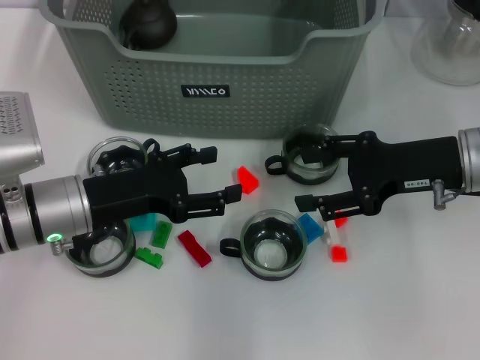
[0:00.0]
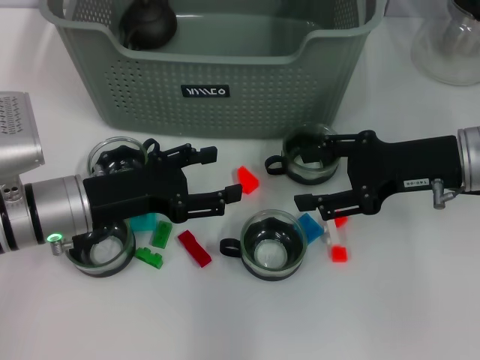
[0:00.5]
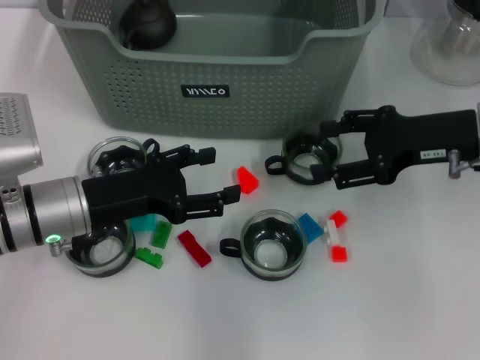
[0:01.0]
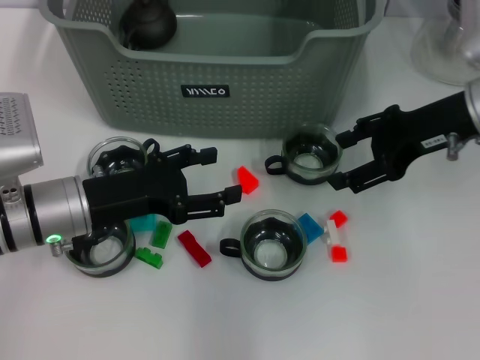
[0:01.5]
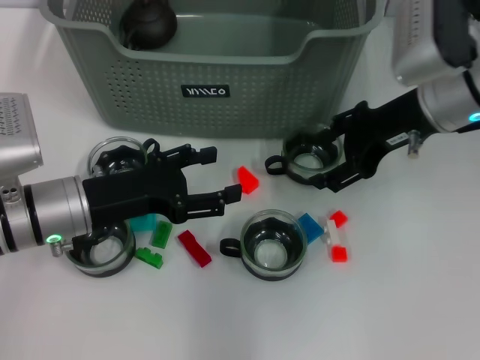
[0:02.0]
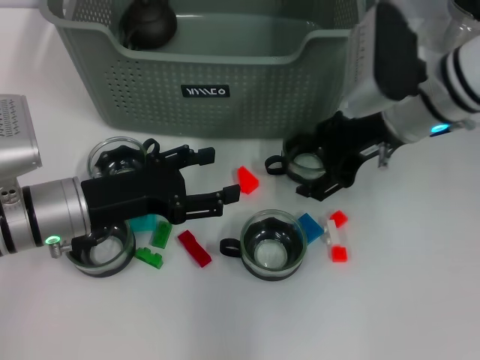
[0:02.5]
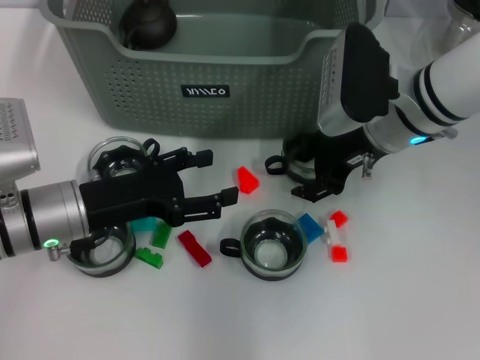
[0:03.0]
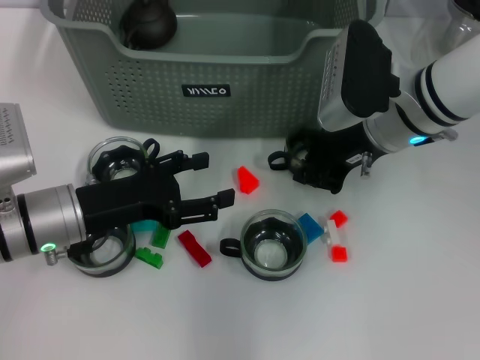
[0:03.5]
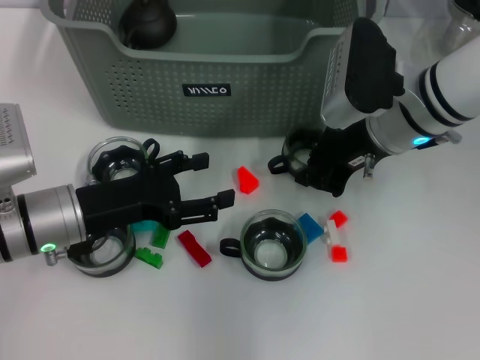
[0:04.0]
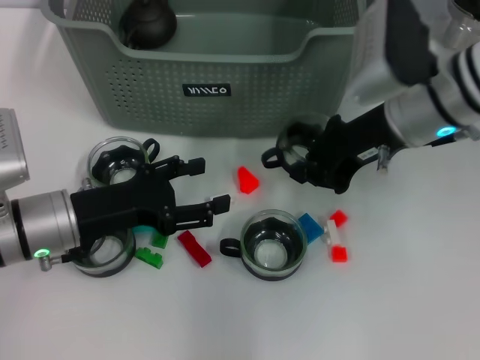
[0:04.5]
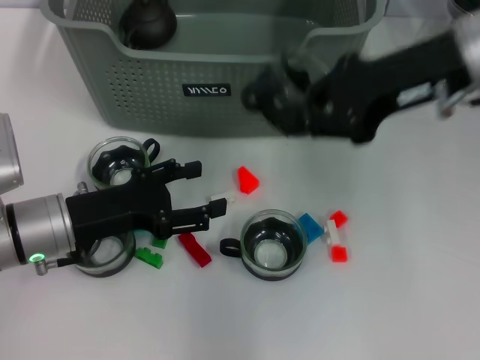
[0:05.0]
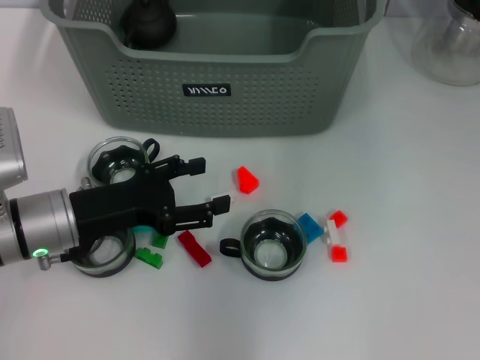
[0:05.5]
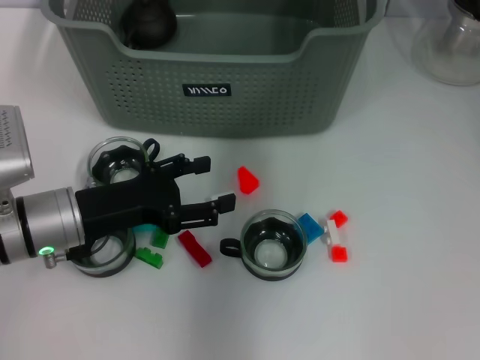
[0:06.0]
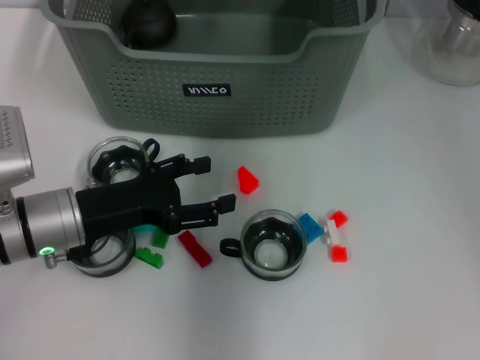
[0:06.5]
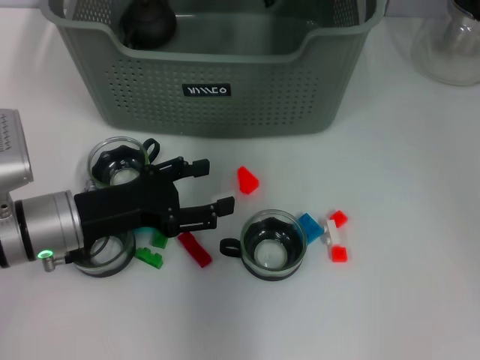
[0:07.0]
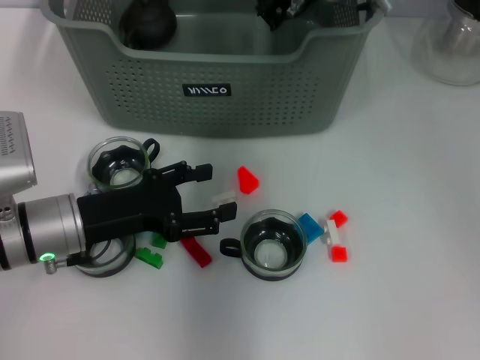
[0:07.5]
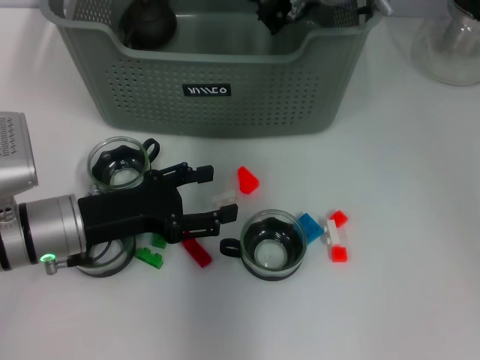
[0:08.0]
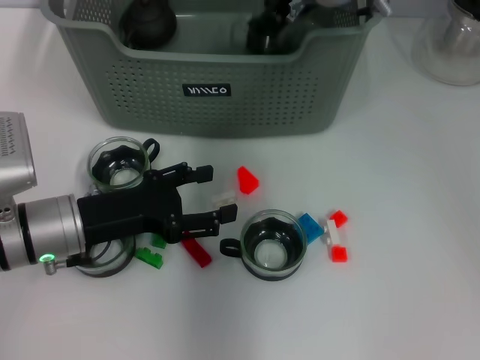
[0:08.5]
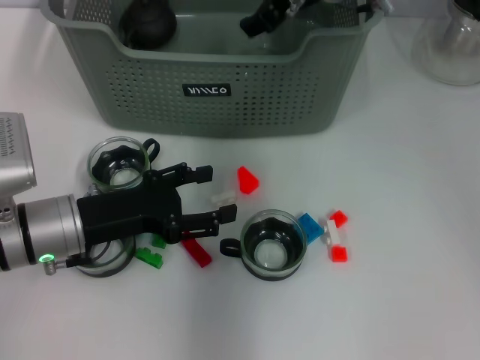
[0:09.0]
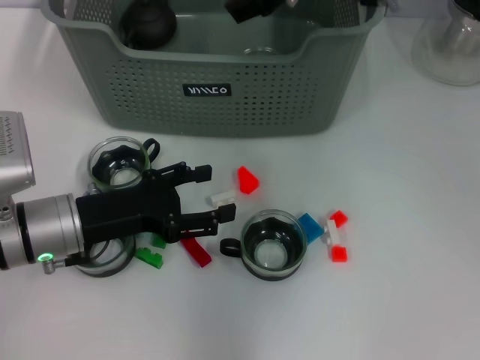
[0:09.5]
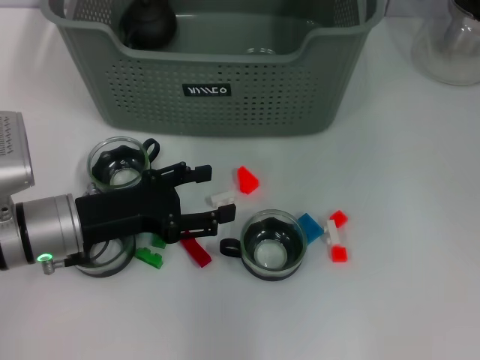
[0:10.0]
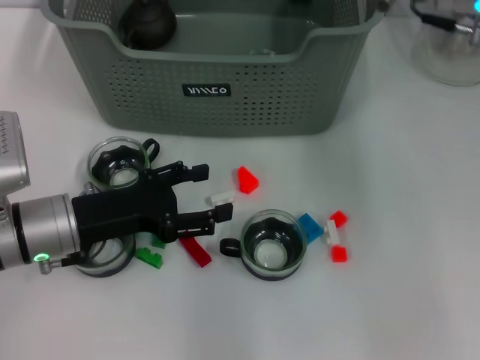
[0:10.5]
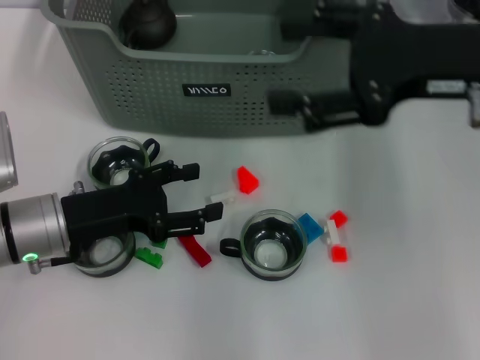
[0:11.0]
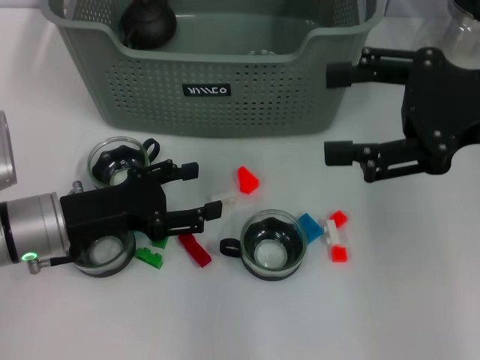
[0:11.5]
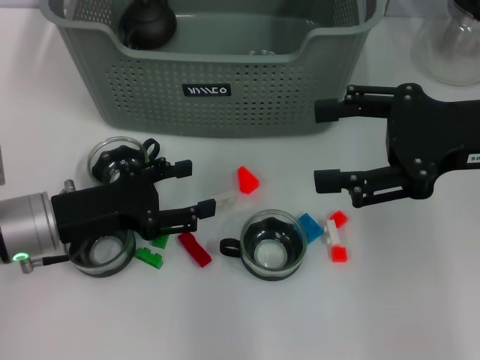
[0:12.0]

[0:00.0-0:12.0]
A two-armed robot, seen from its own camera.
Task of the whole recording: pick up the teacup on the table and place it into the storage bin, pick up the block on the table and place it into the storage bin.
Step, 0:00.0 to 0:03.5: Grasp the cup with right gripper.
Step, 0:04.0 to 0:09.5: Place the cup in the storage box with right gripper.
0:00.0 to 0:02.0: The right gripper heads forward, covering approximately 5 cm.
0:02.0 to 0:04.0: The right gripper ends up about 5 cm from where it was, and closes its fingers.
0:04.0 to 0:06.0: The right gripper is displaced upward and forward by approximately 20 cm.
0:06.0 to 0:08.0: The right gripper is displaced downward by roughly 10 cm.
0:08.0 to 0:10.0: The right gripper travels backward and upward by roughly 10 cm, and opens up.
0:10.0 to 0:12.0: The right gripper heads to the right, backward and downward, covering about 20 cm.

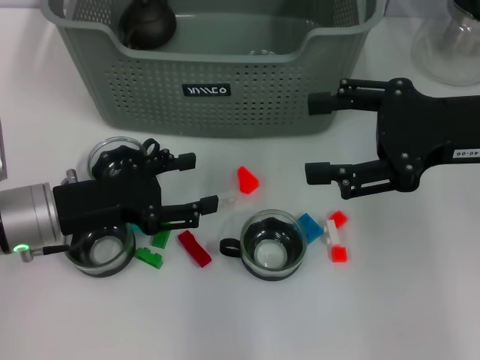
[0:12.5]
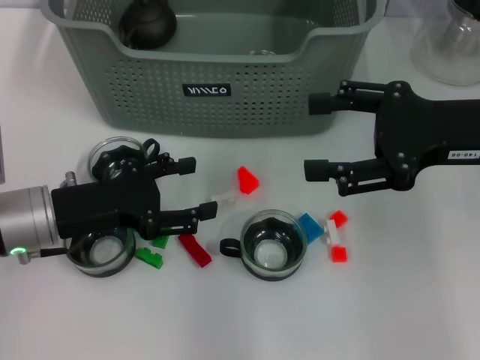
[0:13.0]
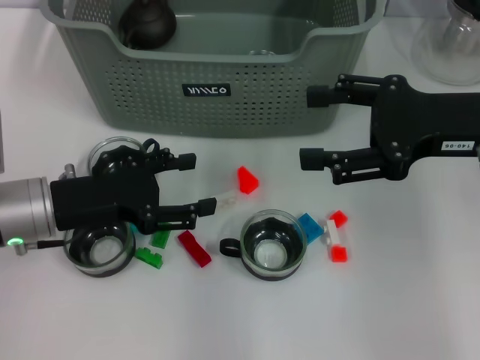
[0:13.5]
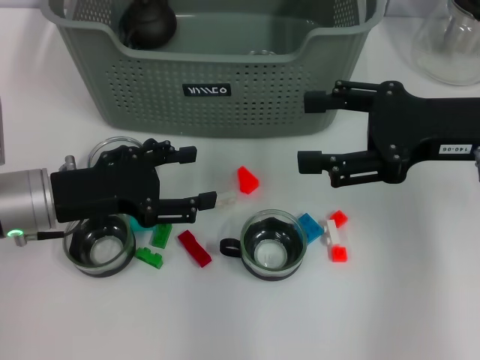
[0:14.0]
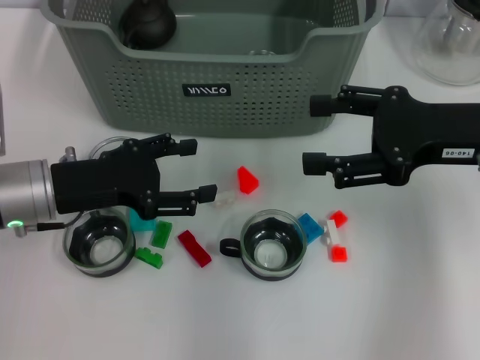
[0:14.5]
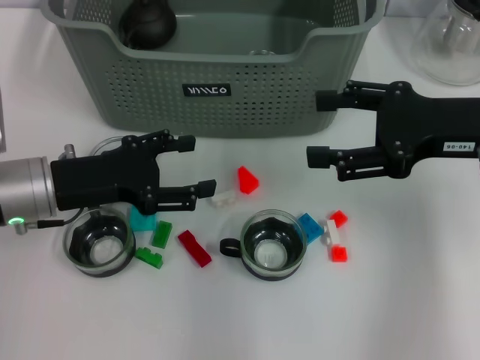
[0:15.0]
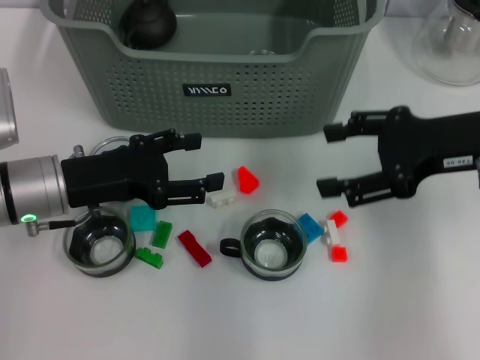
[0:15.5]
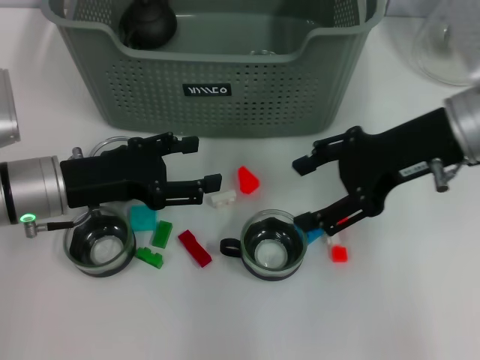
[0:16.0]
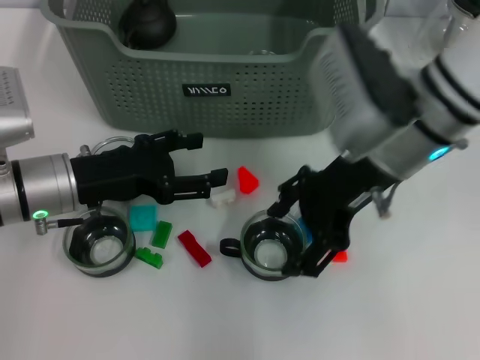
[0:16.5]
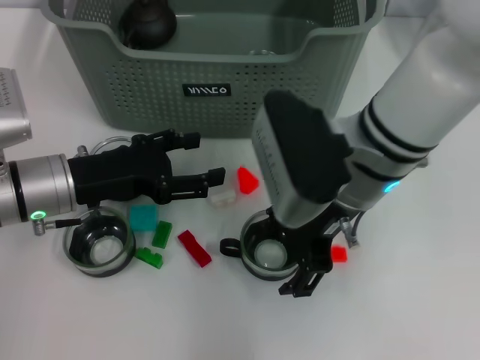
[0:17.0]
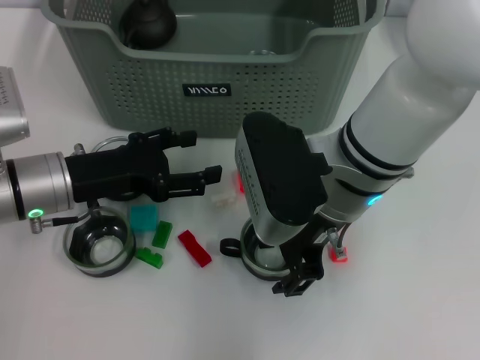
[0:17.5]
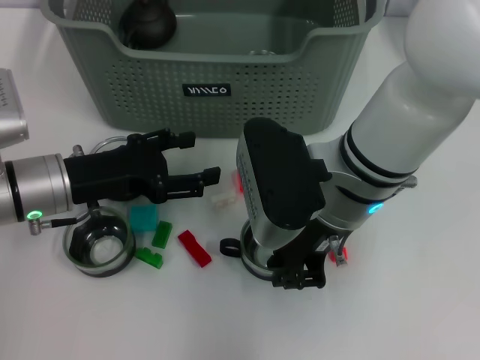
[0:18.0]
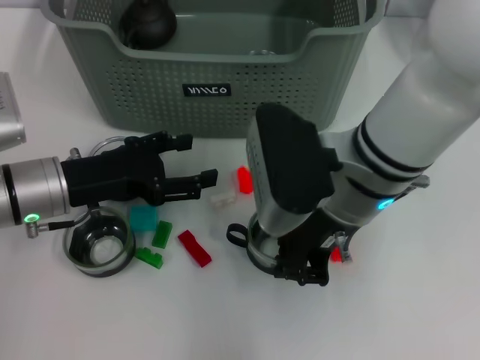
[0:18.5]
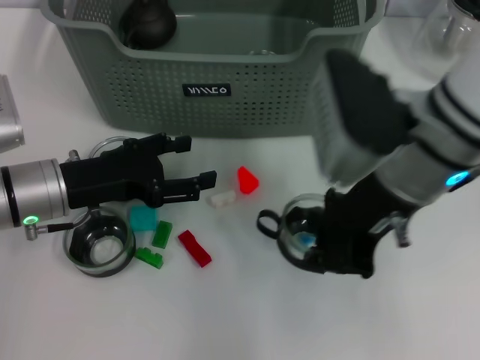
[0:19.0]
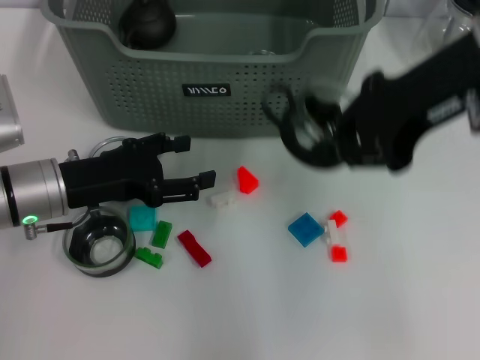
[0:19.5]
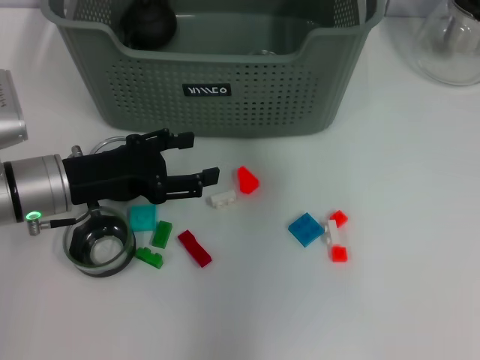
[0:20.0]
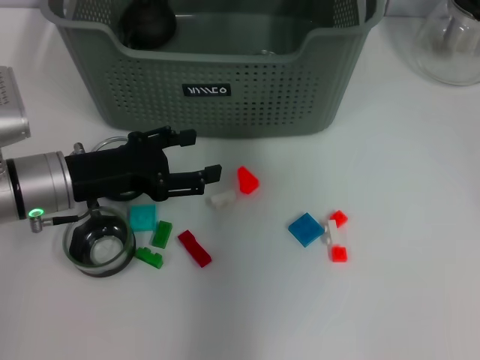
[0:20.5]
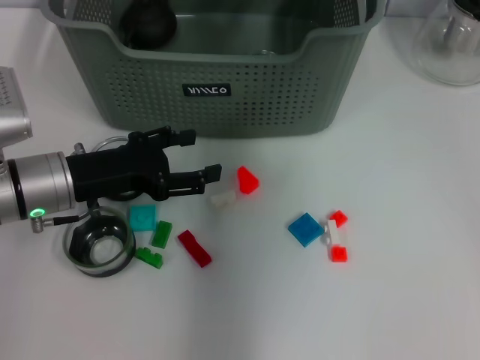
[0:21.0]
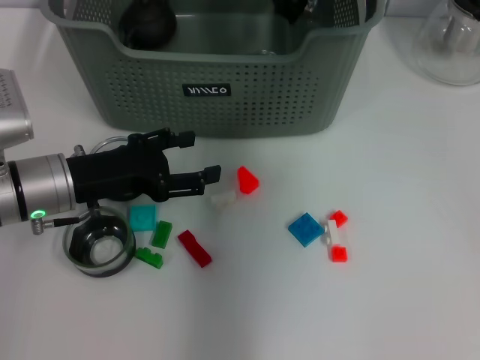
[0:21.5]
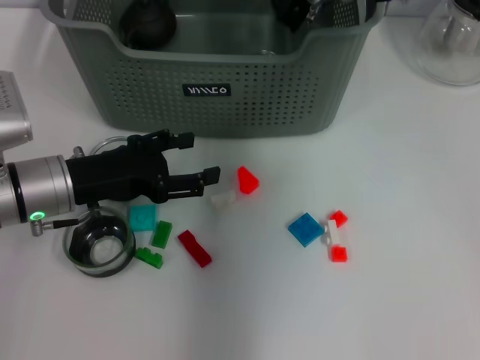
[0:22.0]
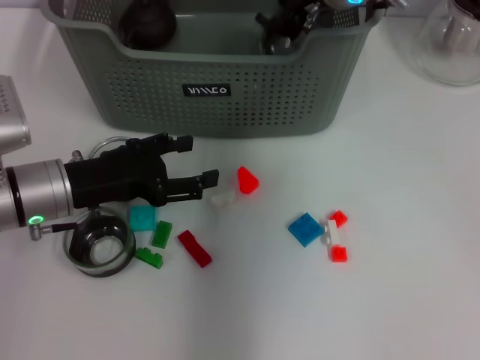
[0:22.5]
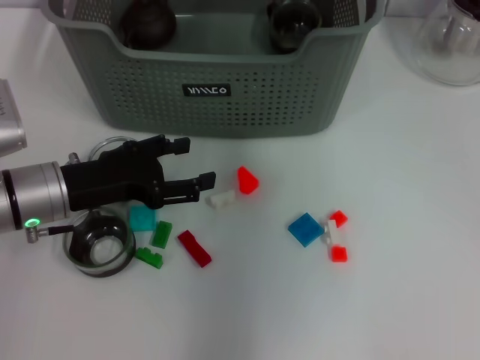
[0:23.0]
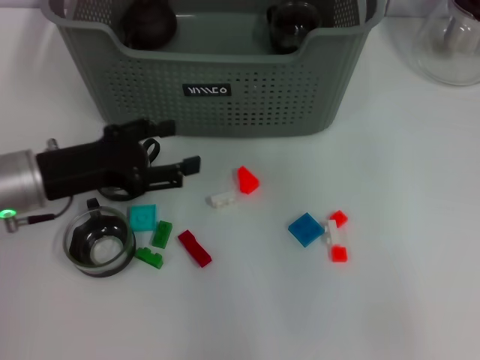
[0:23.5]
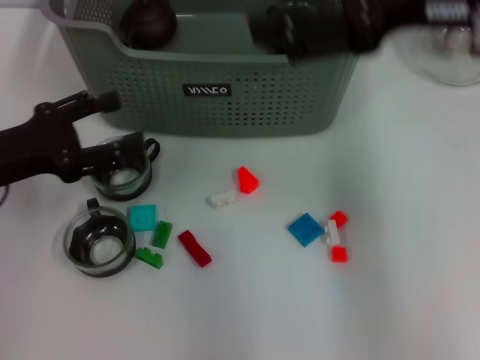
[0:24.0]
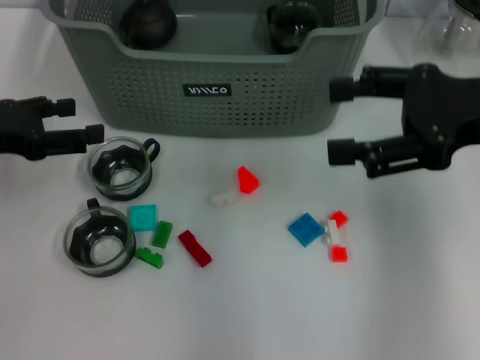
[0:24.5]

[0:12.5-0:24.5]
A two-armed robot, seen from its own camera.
Task of the whole recording: pick up the teacup on the table and place it into the storage bin, pick up the block on the table and place it into the storage bin.
Step, 0:12.5 to 0:18.0: Grasp the cup with right gripper.
Step, 0:18.5 to 0:22.5: Place the cup in the storage box with right gripper.
0:12.5 to 0:14.5: The grippers stay close to where they were, moving slightly.
0:14.5 to 0:16.5: The right gripper goes about 10 cm to the left.
0:16.5 to 0:18.5: The right gripper changes place by roughly 5 cm, and closes up.
0:18.5 to 0:20.5: The right gripper is displaced forward and upward by about 20 cm.
0:20.5 to 0:22.5: The right gripper goes some 10 cm downward.
0:22.5 to 0:24.5: The right gripper is displaced backward and to the right by approximately 25 cm, and opens its fingers. The left gripper travels to the left and upward by approximately 10 cm.

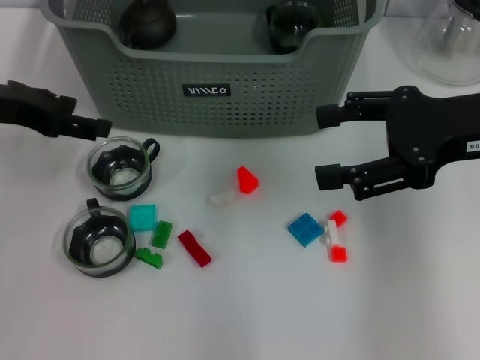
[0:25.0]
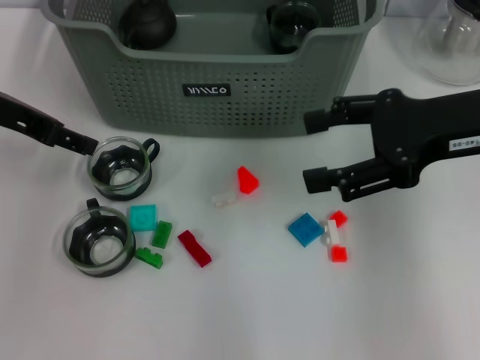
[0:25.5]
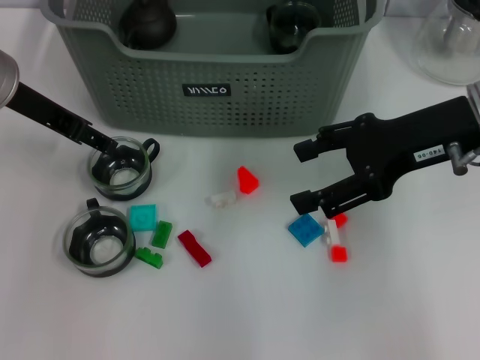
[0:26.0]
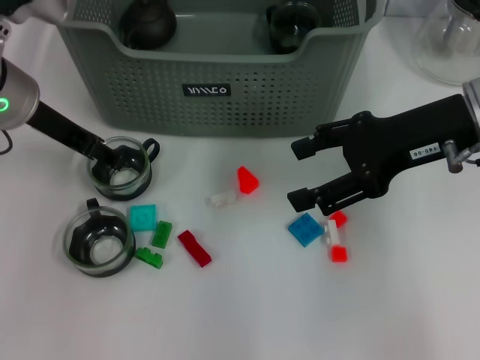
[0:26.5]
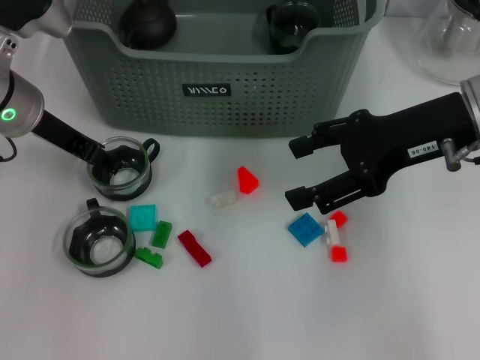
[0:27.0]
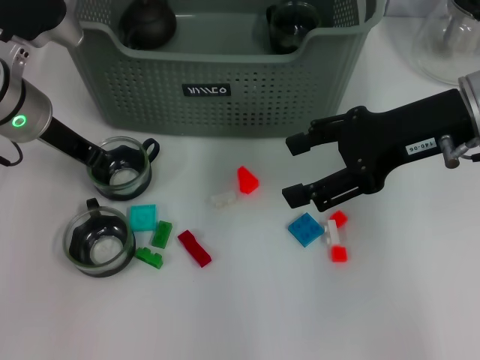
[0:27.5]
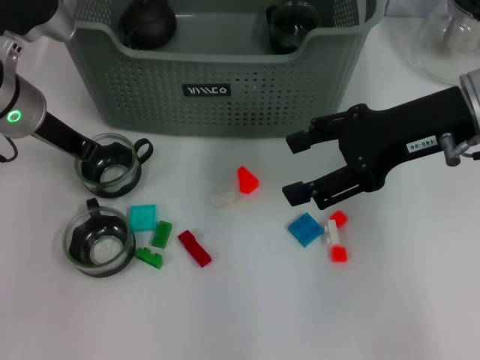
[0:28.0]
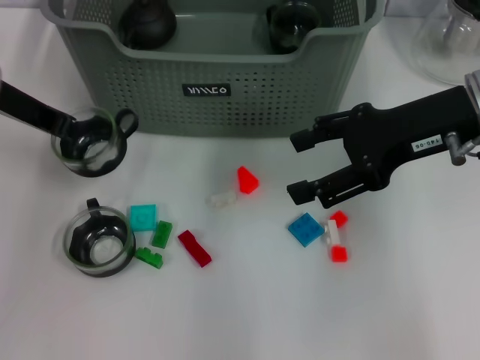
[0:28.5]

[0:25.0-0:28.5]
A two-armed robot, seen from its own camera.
Task of the whole recording: pick up the teacup on the table and place it into the storage bin, pick up the block on the table and place it into the storage bin.
Step, 0:25.0 to 0:28.0: Grasp the cup with left gripper.
0:25.0 to 0:27.0: The left gripper goes approximately 5 cm to the right.
0:27.0 to 0:28.5: The left gripper ends up approximately 5 cm from where it was, and closes up.
